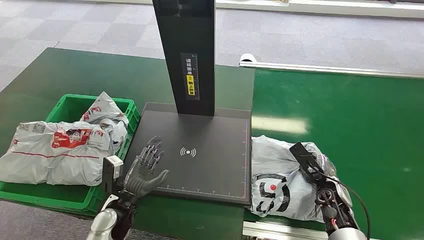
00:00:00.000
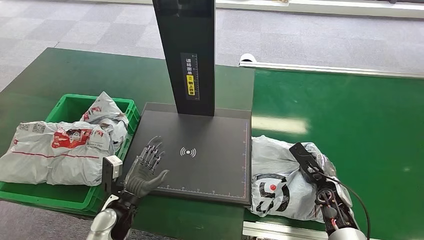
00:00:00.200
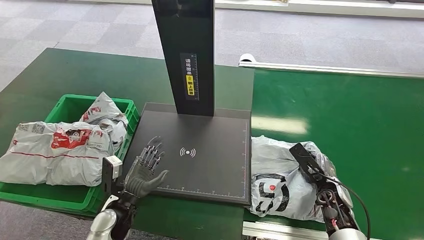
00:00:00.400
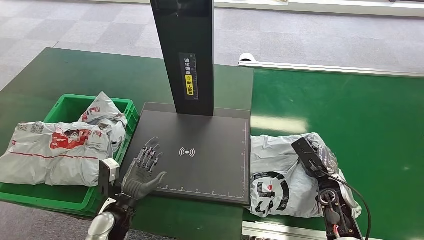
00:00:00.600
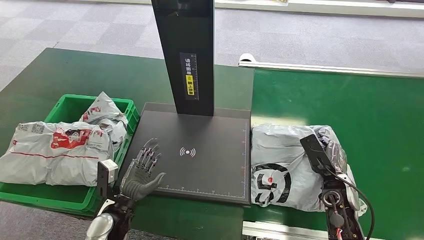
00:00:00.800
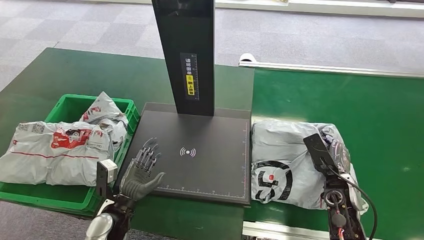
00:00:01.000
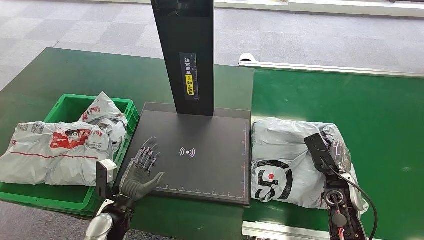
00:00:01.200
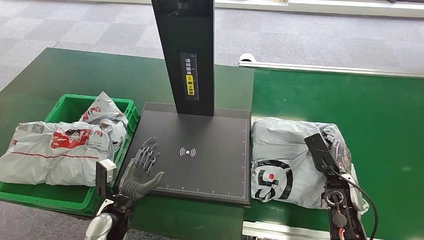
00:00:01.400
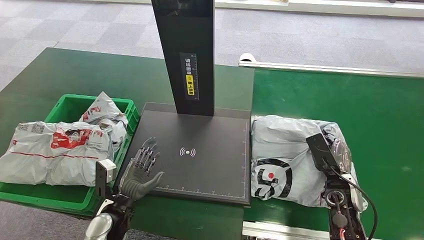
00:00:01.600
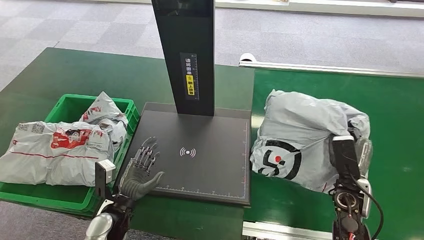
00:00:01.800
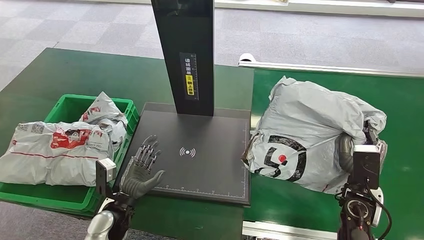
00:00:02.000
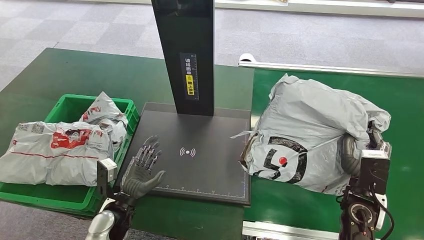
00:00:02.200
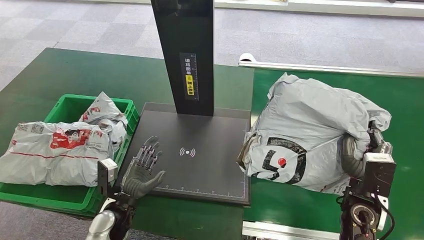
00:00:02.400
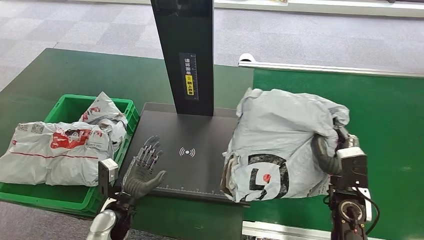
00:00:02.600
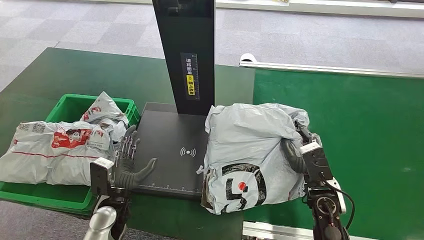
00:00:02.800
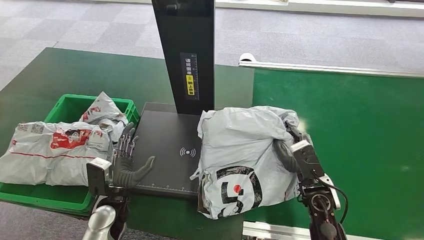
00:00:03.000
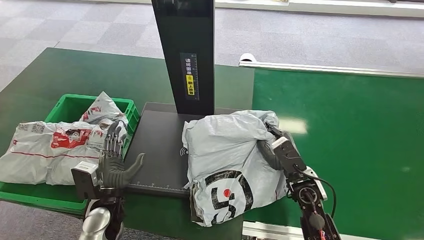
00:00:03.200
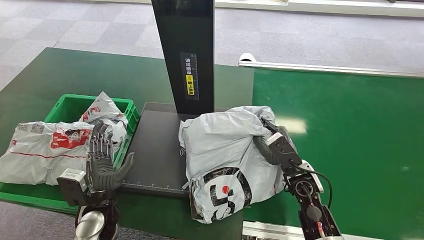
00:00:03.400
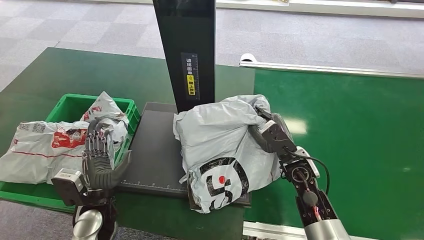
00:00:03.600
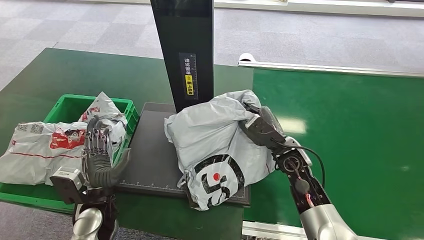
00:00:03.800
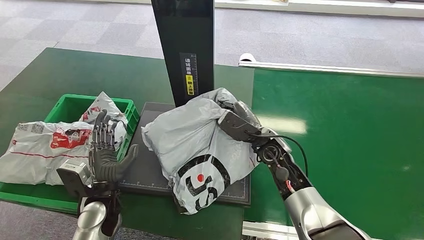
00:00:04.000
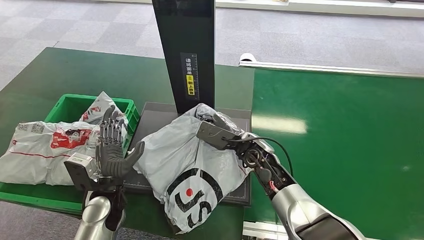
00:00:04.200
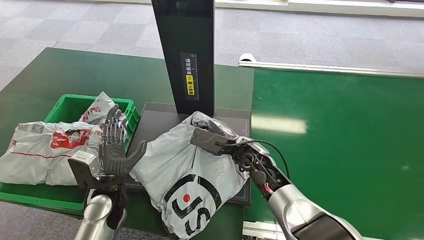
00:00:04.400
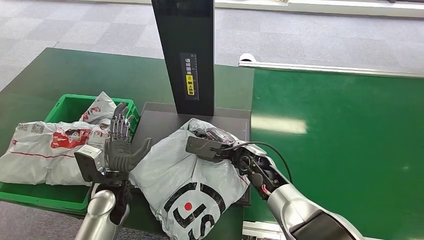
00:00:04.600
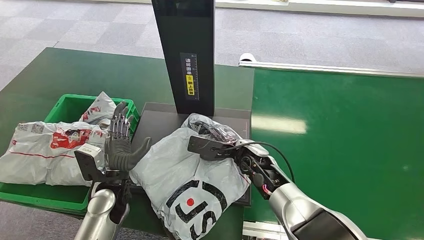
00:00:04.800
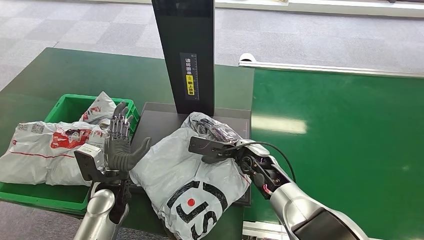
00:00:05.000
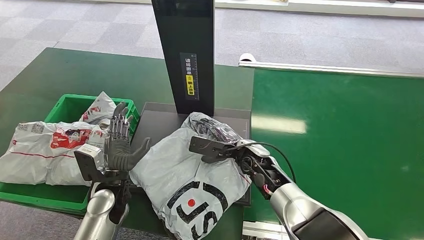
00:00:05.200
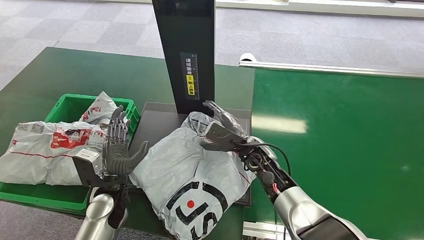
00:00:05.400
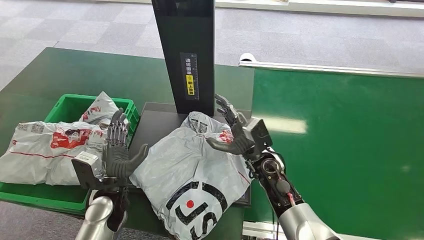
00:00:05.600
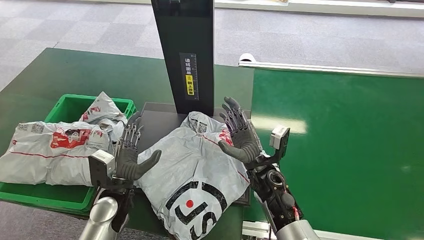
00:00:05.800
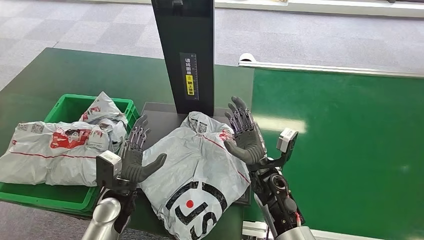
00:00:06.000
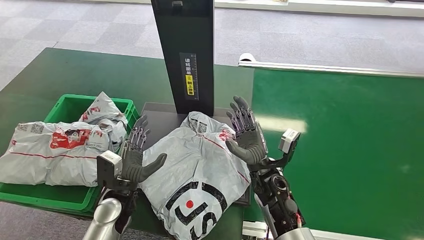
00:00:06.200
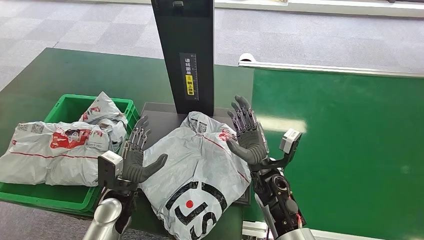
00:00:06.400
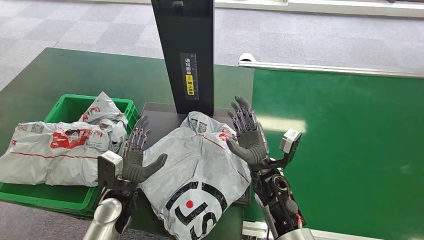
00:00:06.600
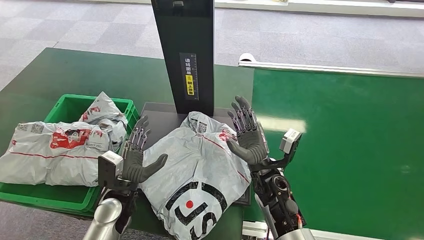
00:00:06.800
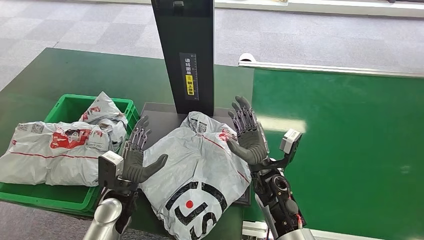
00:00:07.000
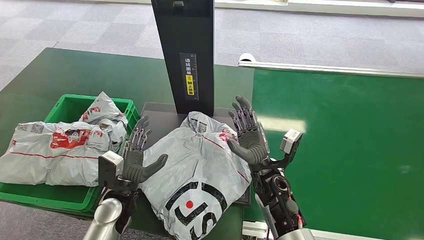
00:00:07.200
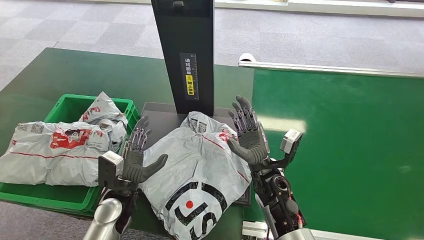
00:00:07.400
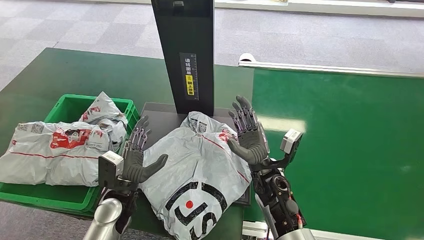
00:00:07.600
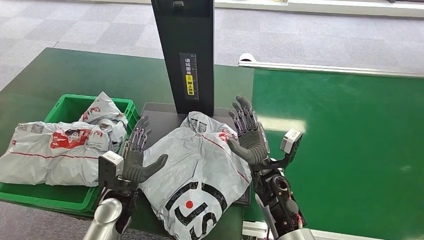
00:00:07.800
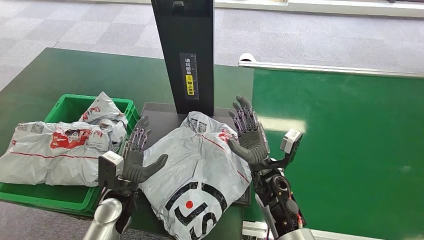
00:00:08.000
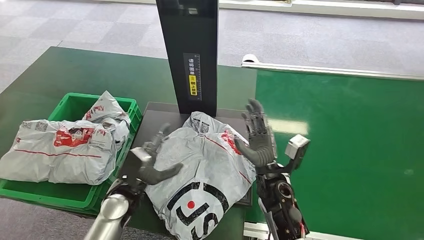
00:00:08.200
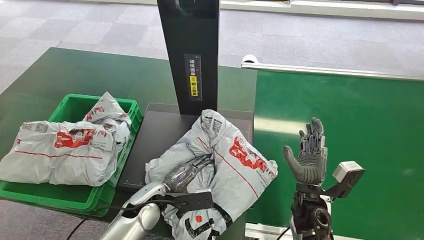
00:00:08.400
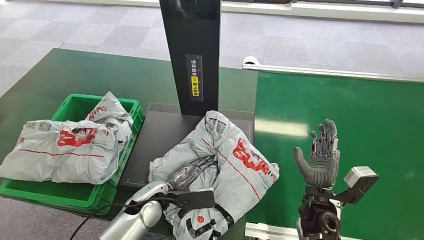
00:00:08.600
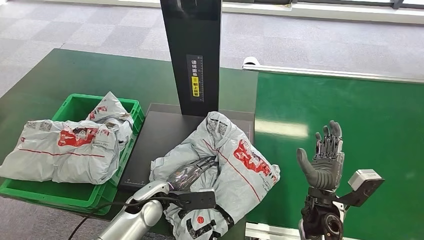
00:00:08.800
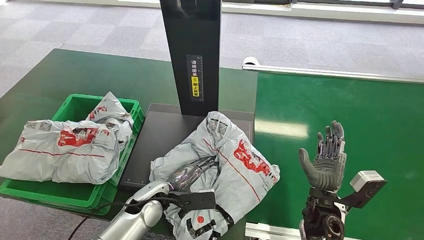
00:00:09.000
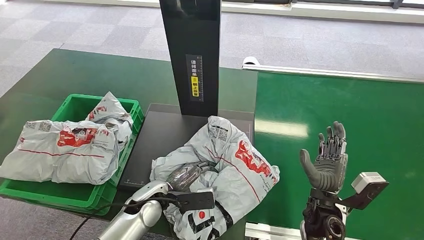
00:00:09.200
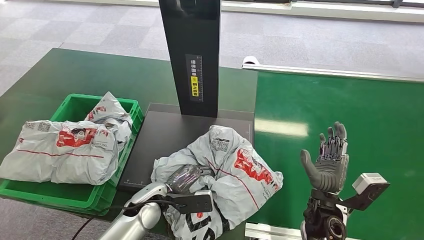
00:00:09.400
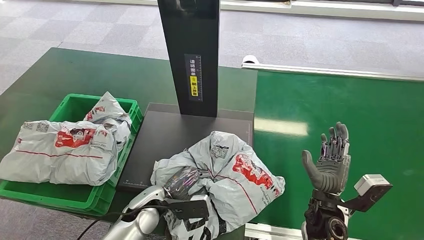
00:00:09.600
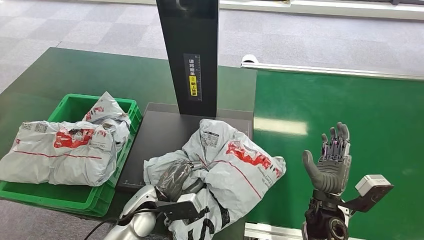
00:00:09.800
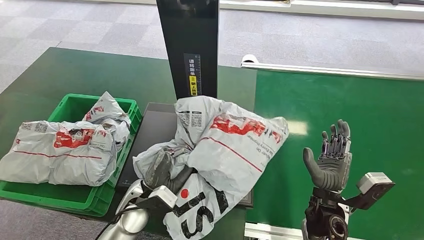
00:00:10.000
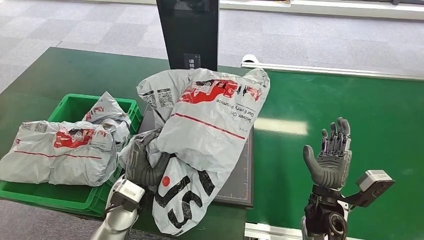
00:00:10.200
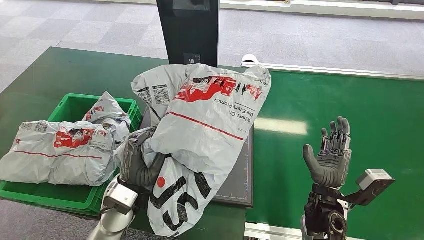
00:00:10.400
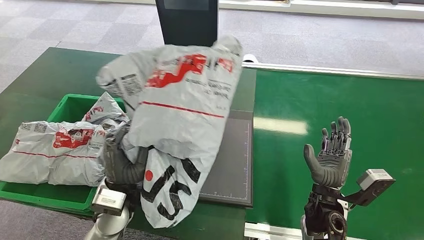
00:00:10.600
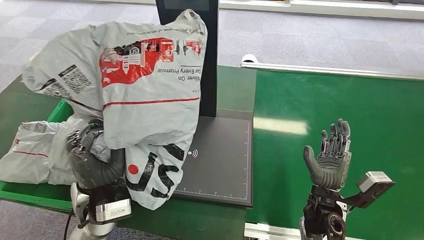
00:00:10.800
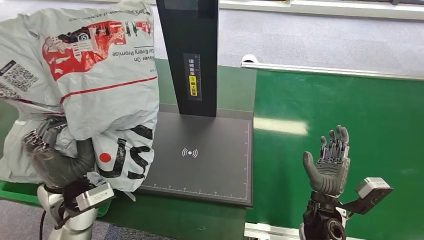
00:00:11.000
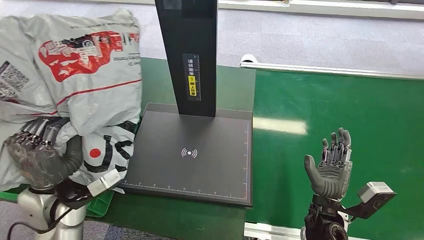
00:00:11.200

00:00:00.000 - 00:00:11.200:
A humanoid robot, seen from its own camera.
Task of the whole recording: Weigh the package on the weighing device and place it in the left basket.
Step, 00:00:00.000 - 00:00:01.800: Pick up the package from the conveyor belt.
Step, 00:00:02.200 - 00:00:05.800: Place the package onto the inbound machine.
Step, 00:00:06.000 - 00:00:10.200: Pick up the package from the inbound machine.
00:00:01.600 - 00:00:03.200: The right hand shifts about 10 cm to the left.
00:00:04.800 - 00:00:06.400: The right hand heads backward, covering roughly 5 cm.
00:00:06.400 - 00:00:08.000: Neither hand changes place.

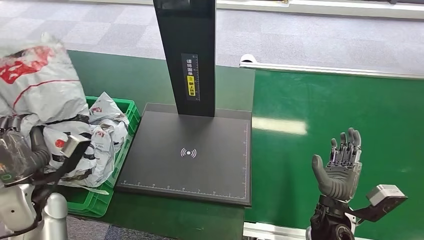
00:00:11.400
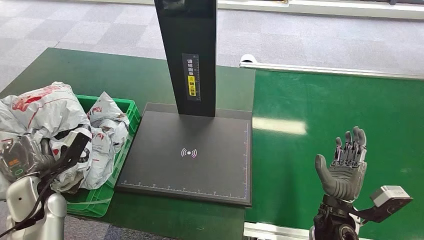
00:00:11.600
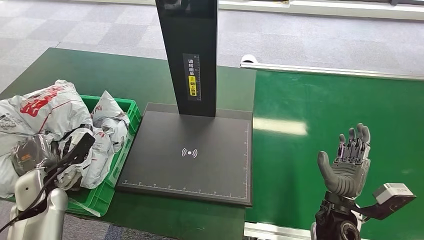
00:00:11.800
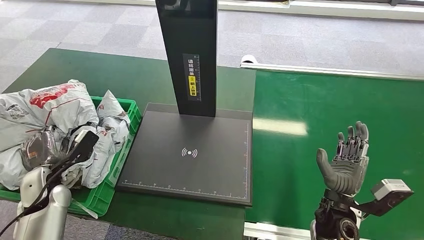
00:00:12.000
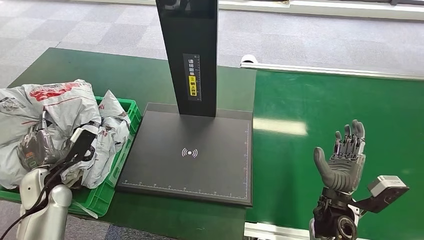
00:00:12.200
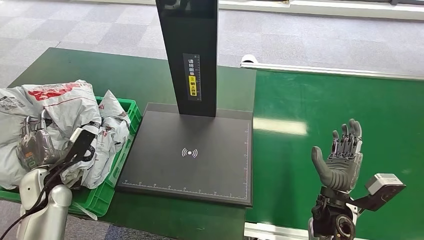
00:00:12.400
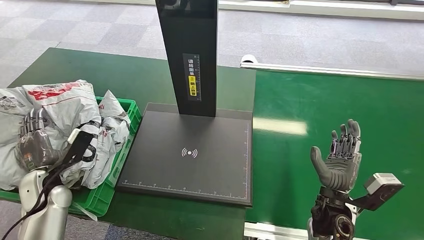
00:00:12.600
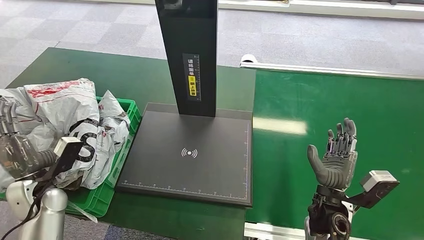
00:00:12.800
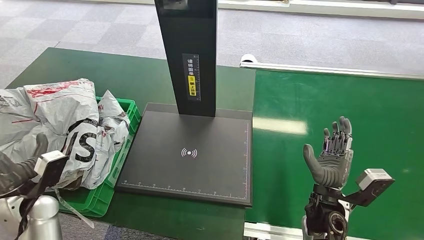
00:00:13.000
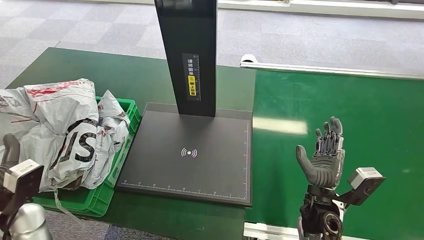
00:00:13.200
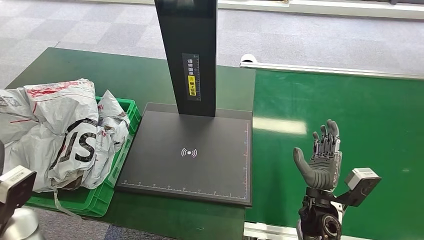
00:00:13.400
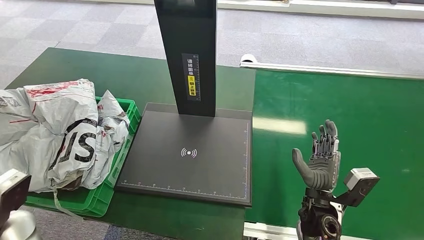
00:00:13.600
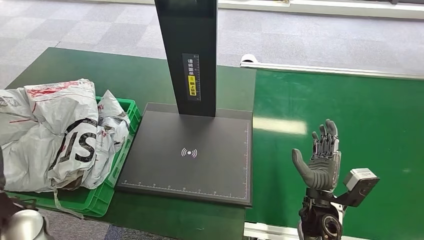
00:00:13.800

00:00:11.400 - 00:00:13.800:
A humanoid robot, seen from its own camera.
Task of the whole recording: Weigh the package on the weighing device and place it in the left basket.
Step, 00:00:11.400 - 00:00:13.800: Place the package into the parcel locker.
00:00:11.400 - 00:00:12.600: The left hand travels downward by approximately 5 cm.
00:00:12.600 - 00:00:13.800: The left hand heads upward and backward, covering about 10 cm.

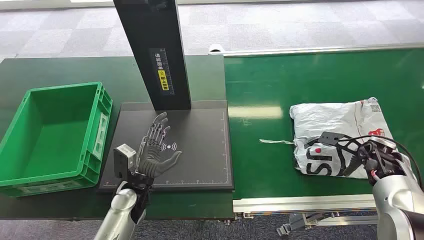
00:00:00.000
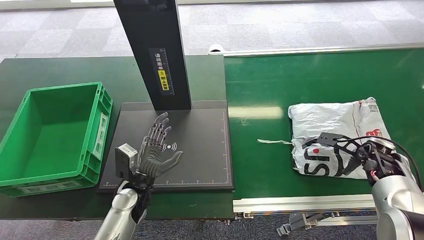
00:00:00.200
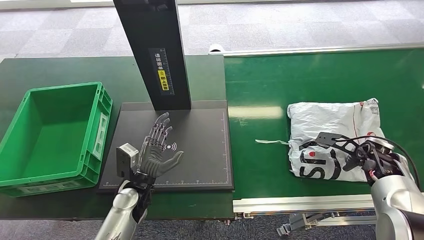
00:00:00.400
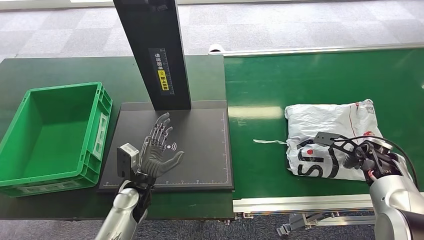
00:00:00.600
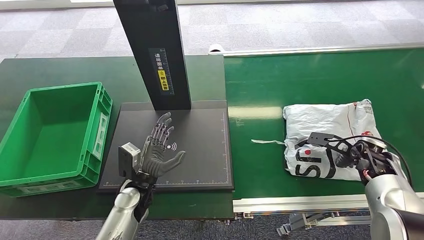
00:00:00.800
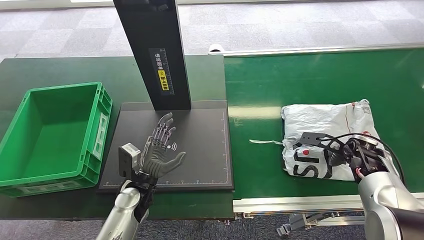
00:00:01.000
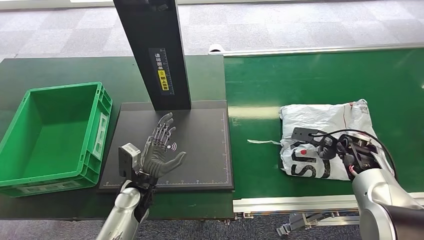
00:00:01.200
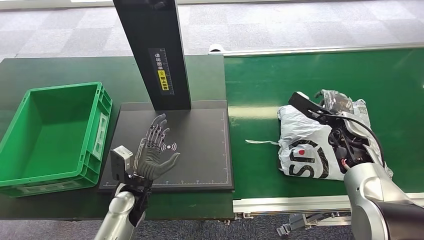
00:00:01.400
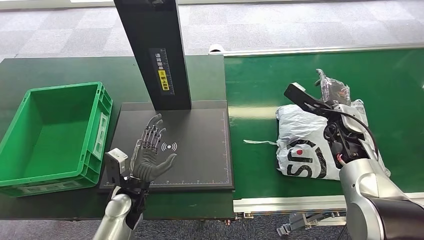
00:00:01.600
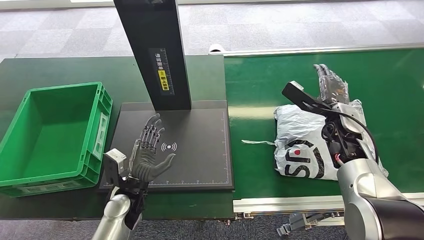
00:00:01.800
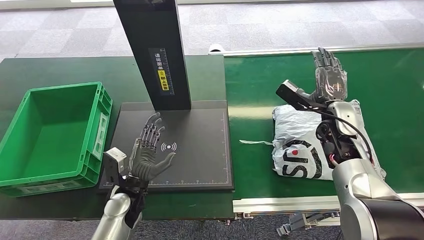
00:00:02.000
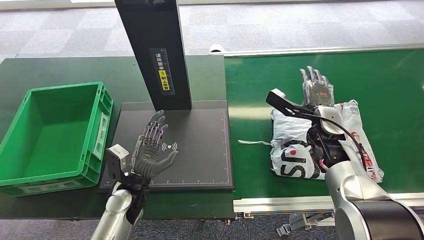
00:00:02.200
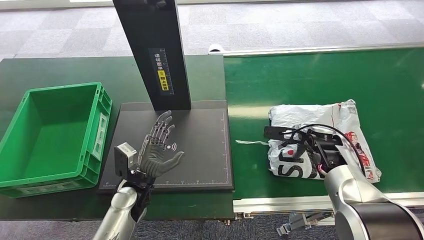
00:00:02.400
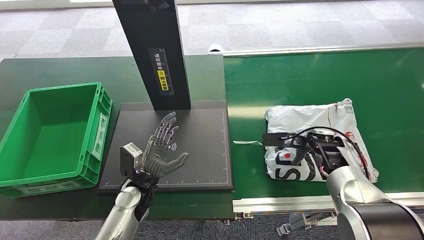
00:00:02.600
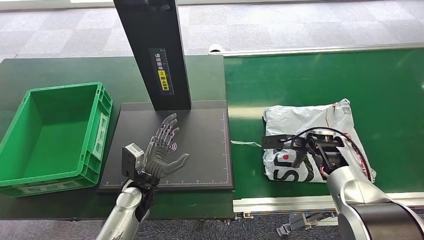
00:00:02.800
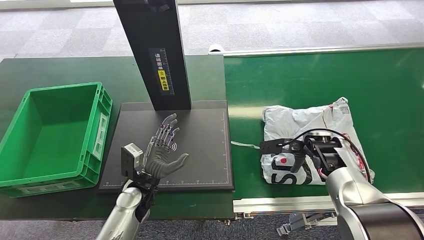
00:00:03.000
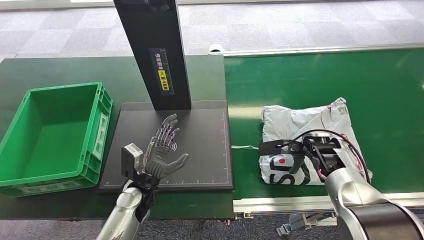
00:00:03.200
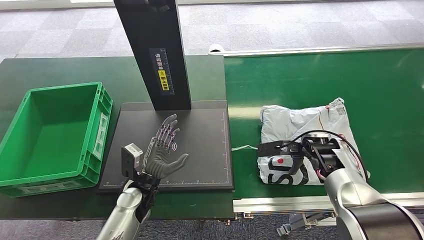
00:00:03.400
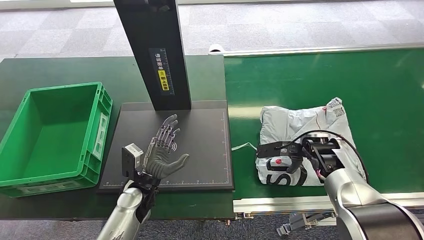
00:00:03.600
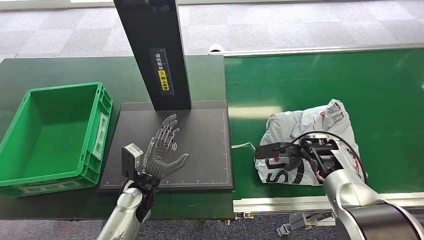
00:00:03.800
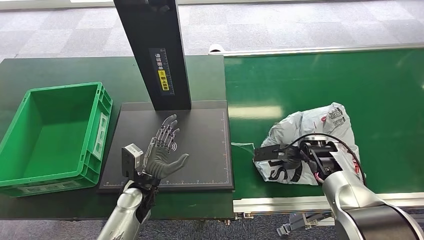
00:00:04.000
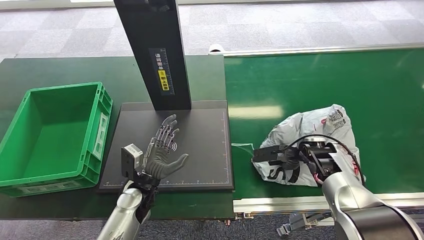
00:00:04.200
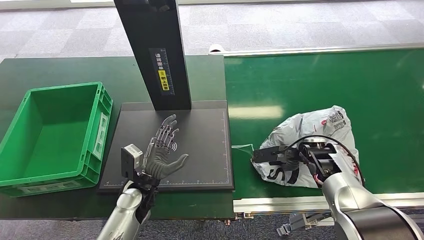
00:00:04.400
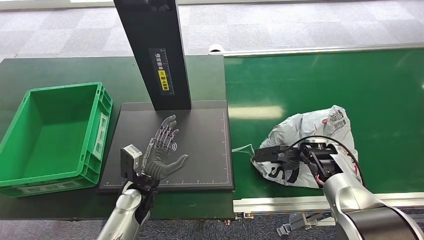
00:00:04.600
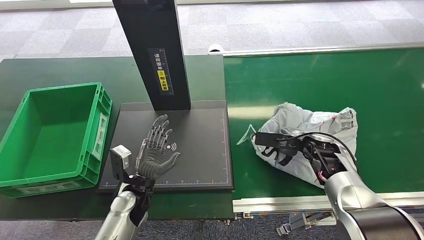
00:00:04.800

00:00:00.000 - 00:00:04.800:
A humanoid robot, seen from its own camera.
Task of the whole recording: Weigh the package on the weighing device and place it in the left basket.
00:00:01.600 - 00:00:03.200: The right hand shifts some 5 cm downward.
